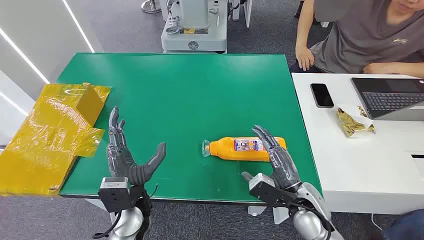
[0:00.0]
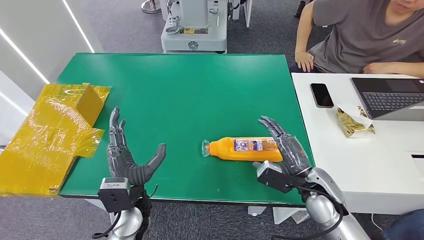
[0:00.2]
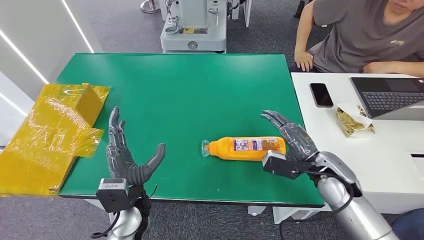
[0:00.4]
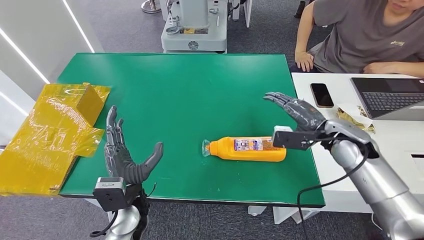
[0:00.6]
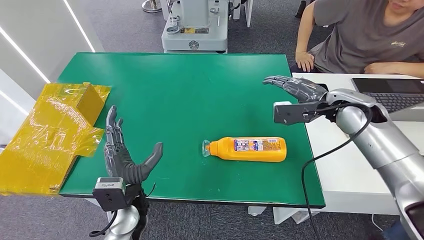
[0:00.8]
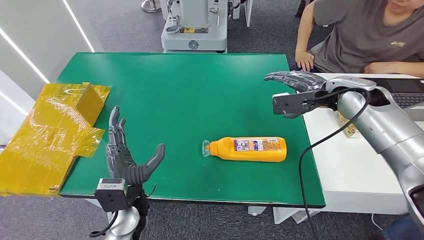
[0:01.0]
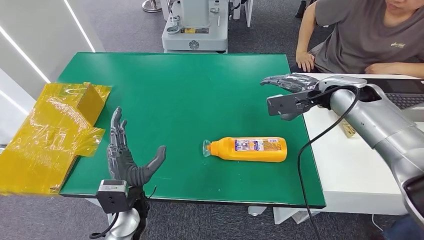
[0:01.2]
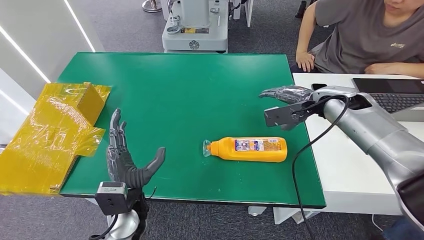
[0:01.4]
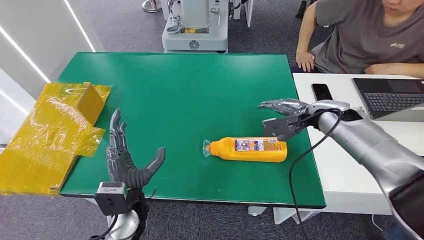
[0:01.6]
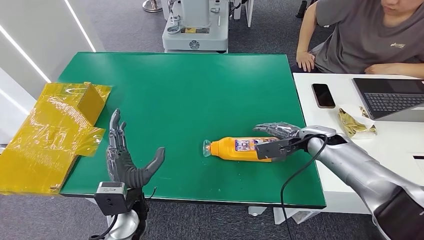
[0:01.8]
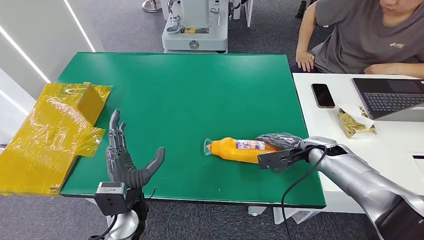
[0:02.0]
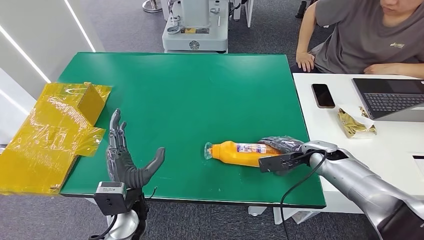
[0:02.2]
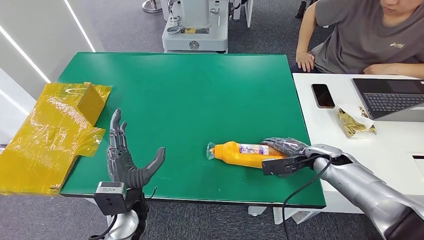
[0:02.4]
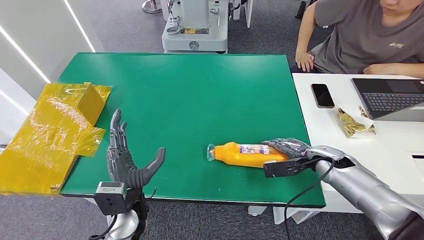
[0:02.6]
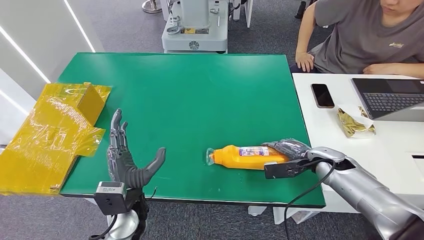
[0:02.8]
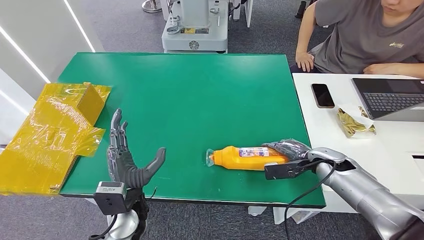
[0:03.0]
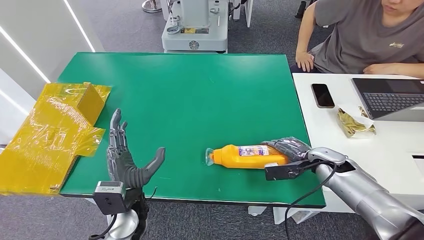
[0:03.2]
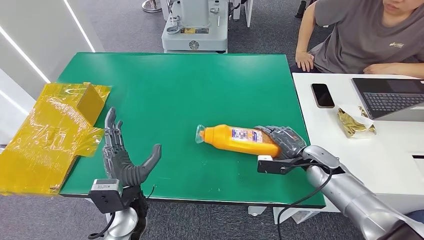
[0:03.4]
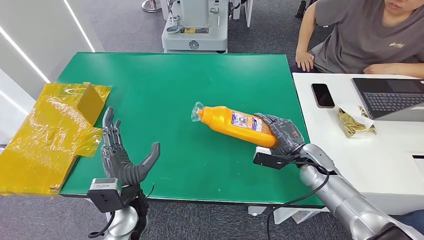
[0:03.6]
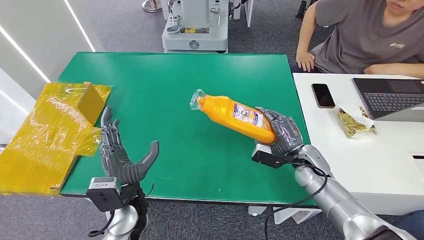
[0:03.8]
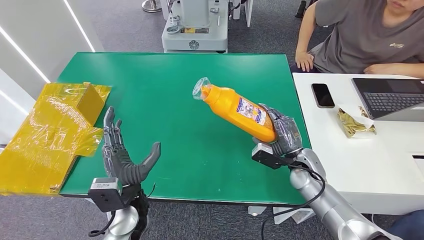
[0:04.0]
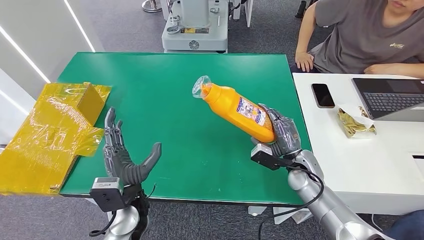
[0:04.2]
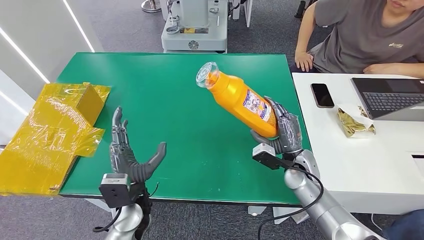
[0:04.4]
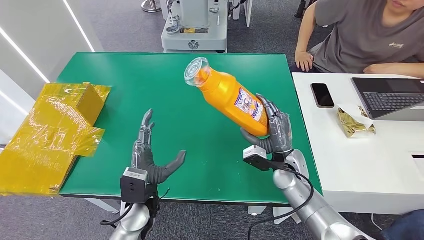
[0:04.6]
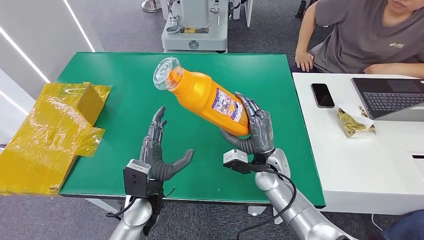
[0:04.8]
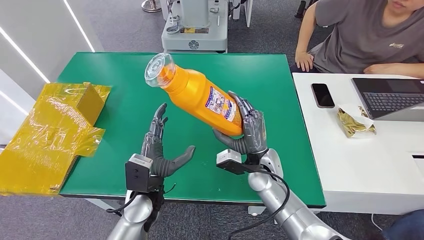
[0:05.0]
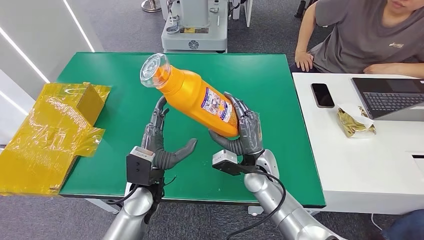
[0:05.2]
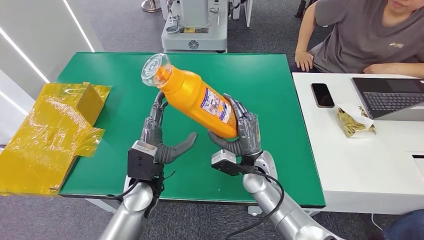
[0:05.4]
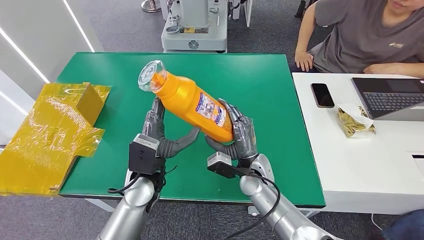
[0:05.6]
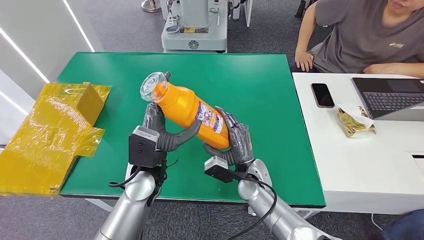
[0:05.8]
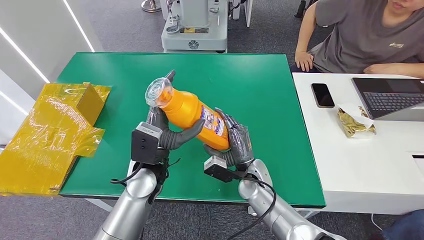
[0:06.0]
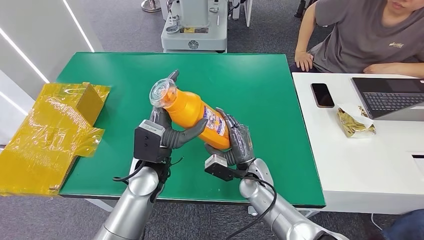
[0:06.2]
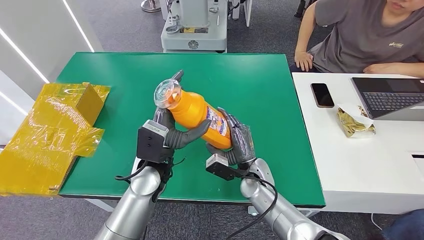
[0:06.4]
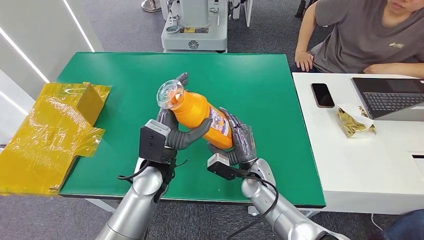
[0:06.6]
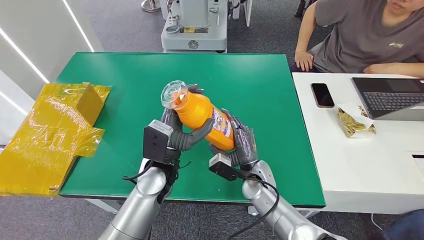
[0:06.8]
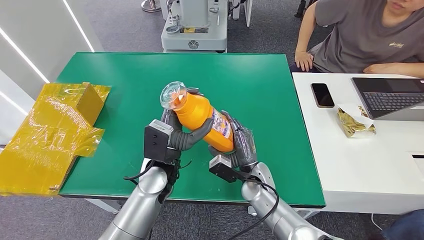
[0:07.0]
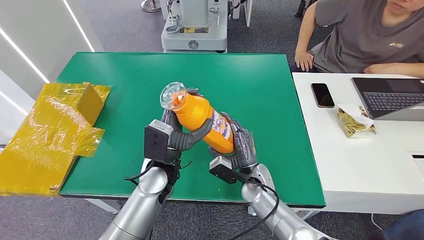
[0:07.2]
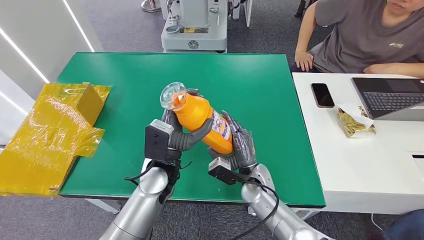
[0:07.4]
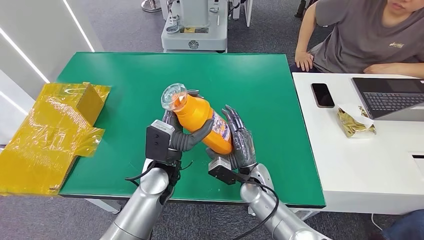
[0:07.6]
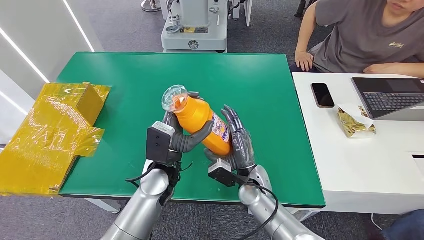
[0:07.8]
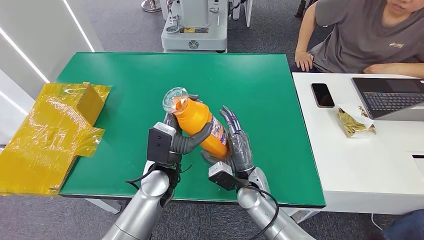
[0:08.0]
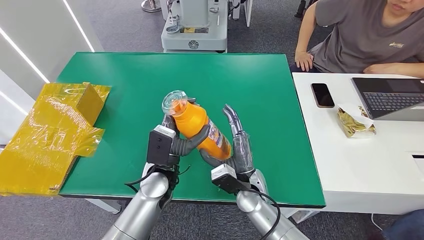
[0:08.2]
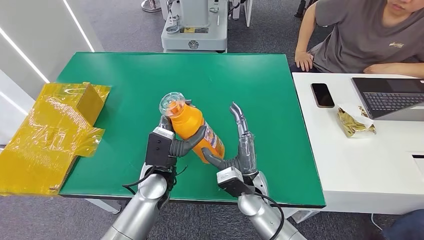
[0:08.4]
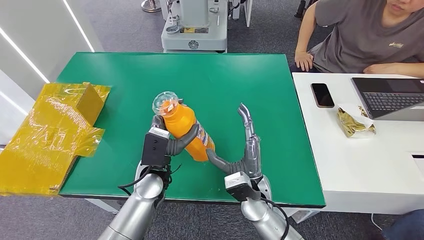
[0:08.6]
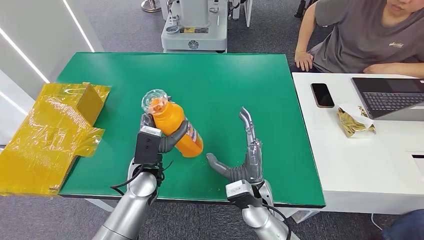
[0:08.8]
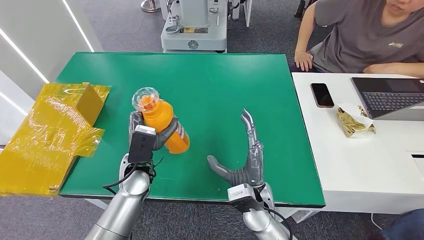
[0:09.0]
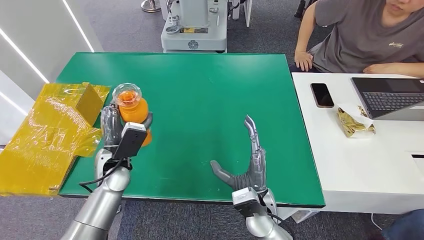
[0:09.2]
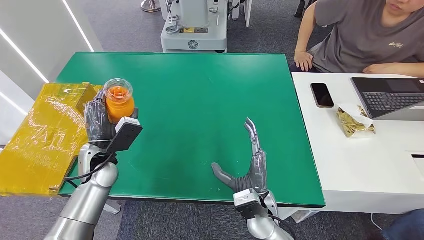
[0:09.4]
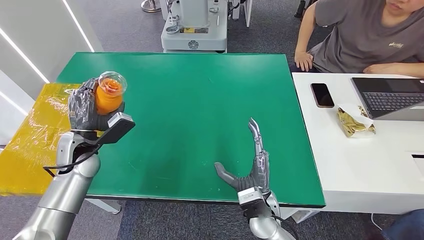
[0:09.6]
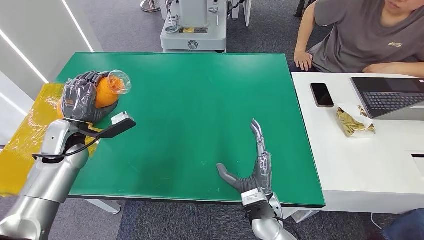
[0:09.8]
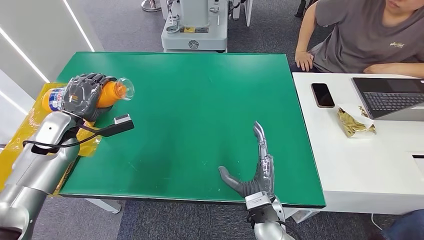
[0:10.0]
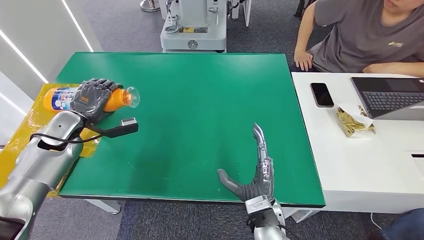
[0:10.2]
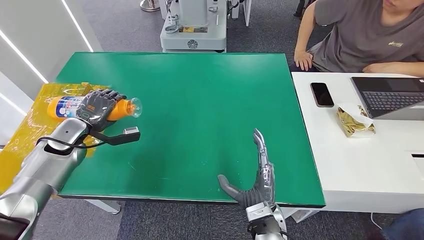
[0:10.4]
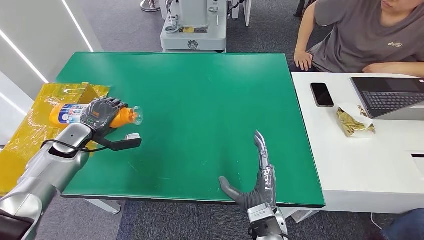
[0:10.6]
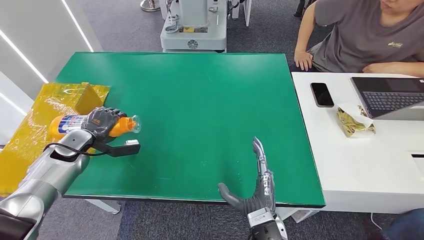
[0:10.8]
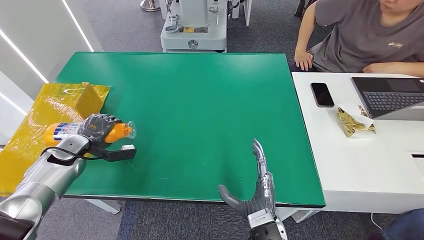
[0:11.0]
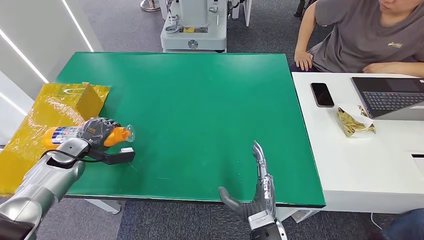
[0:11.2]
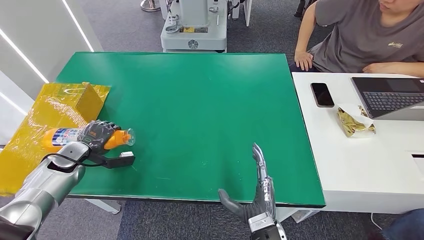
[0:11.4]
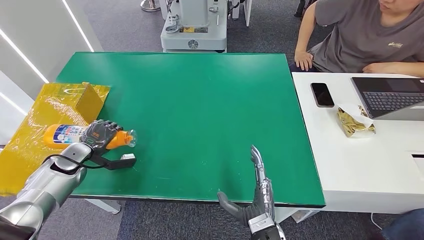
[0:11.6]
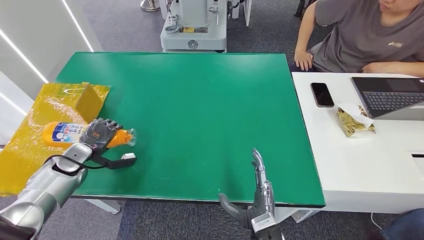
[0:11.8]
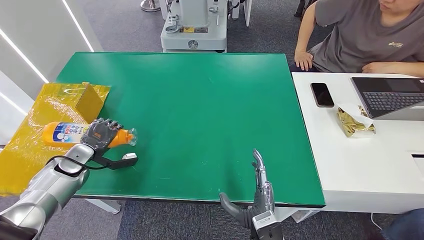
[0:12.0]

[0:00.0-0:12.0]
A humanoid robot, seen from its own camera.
Step, 0.0 to 4.0 s: Pick up the bottle from the table.
1.6 to 3.0 s: The right hand moves downward and backward, about 15 cm.
3.0 to 4.4 s: The right hand shifts some 10 cm to the left.
4.4 to 6.0 s: The left hand moves upward and forward, about 10 cm; the right hand heads to the left, covering about 15 cm.
6.0 to 7.6 s: There are only small adjustments of the hands.
7.6 to 9.0 s: The left hand goes approximately 5 cm to the left, while the right hand is displaced backward by approximately 5 cm.
9.0 to 10.4 s: The left hand heads to the left, covering about 25 cm, while the right hand ends up some 5 cm from where it was.
10.4 to 12.0 s: The left hand travels downward by some 5 cm. Meanwhile the right hand ends up about 5 cm from where it was.

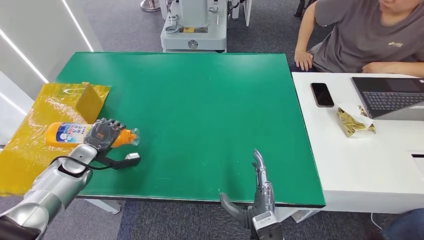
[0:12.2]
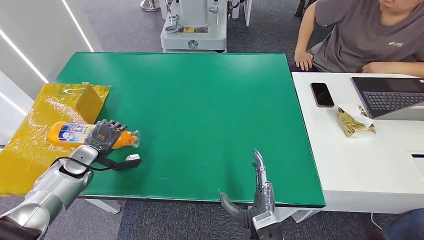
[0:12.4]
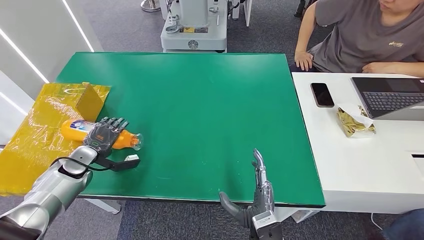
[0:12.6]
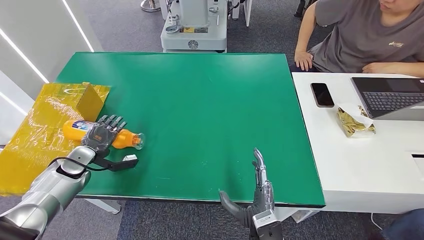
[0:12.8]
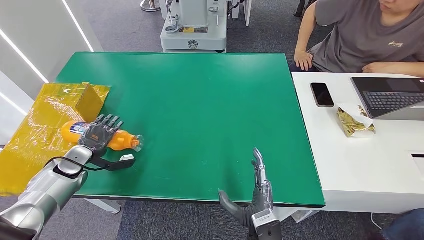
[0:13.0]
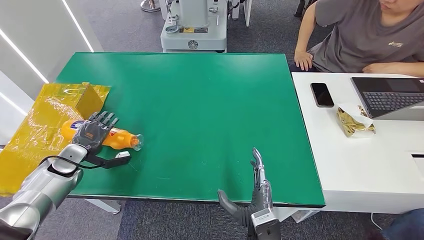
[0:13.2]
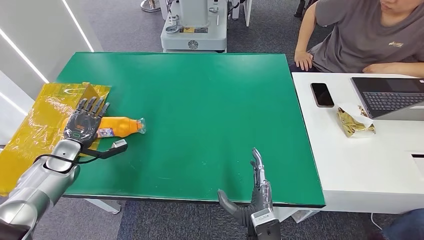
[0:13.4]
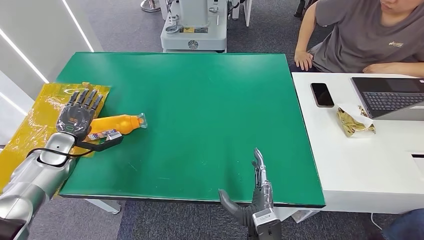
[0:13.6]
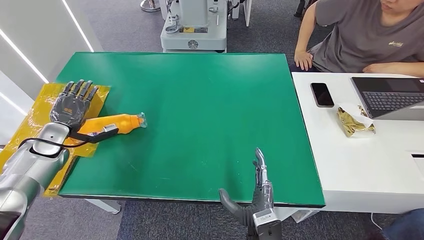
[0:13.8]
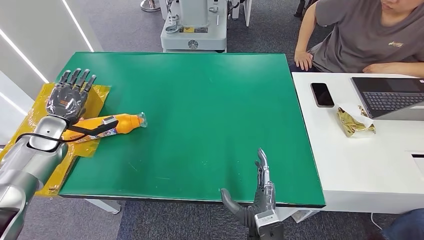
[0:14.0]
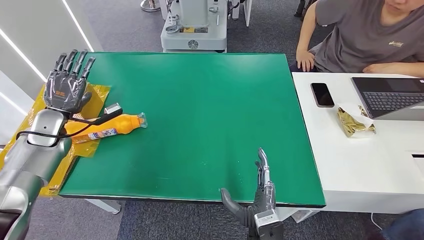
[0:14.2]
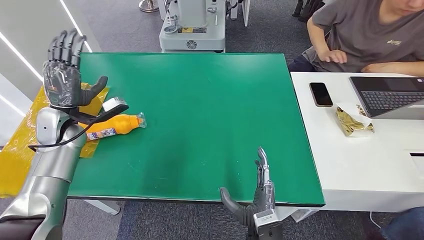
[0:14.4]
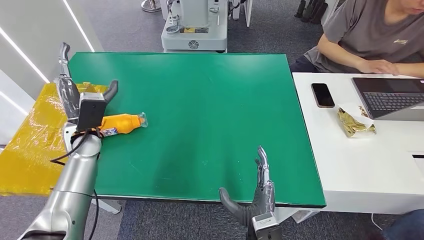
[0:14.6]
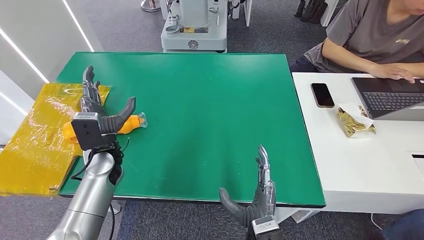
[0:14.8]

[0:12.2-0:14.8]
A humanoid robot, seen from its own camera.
Step, 12.2 to 14.8 s: Turn the bottle to the front side.
12.2 to 13.4 s: The hands make only small movements.
13.4 to 14.8 s: The left hand moves to the right, approximately 20 cm.

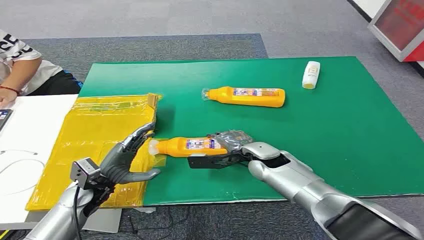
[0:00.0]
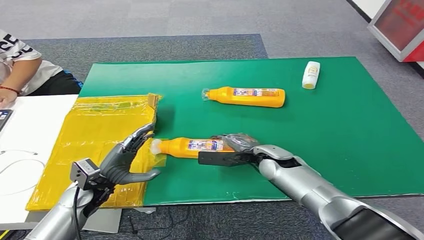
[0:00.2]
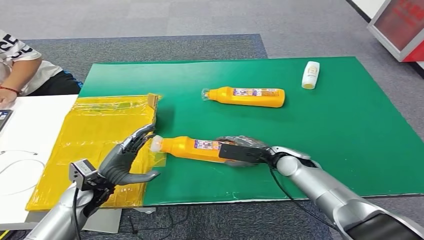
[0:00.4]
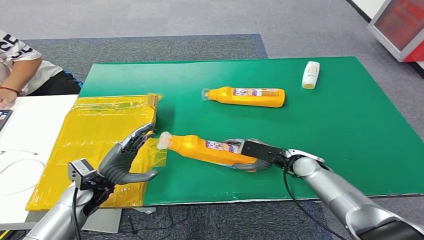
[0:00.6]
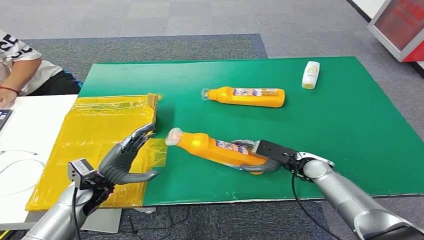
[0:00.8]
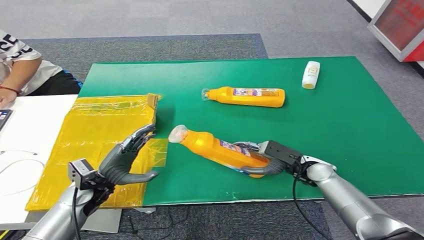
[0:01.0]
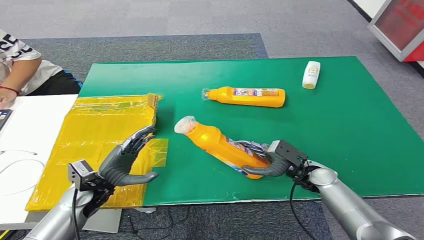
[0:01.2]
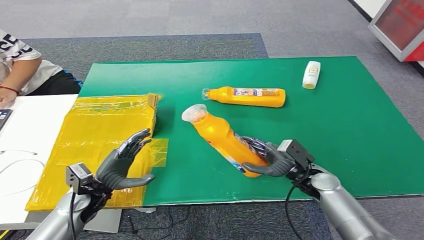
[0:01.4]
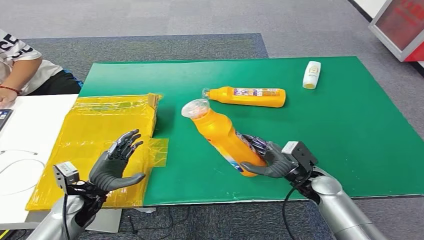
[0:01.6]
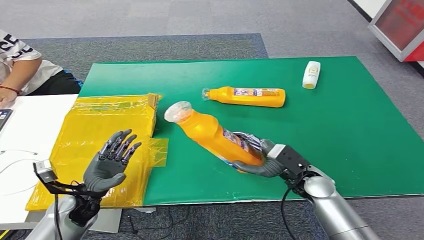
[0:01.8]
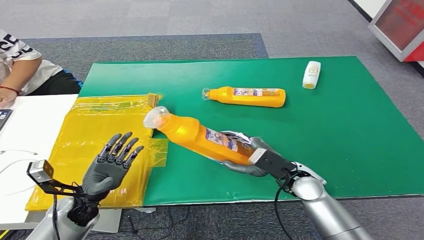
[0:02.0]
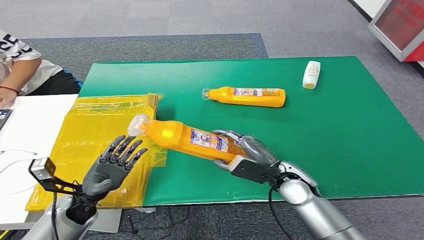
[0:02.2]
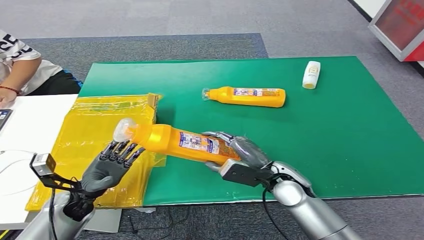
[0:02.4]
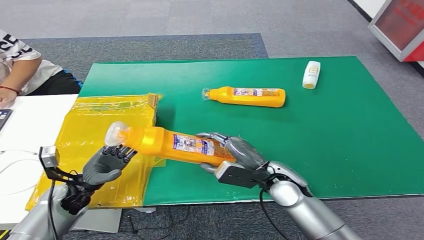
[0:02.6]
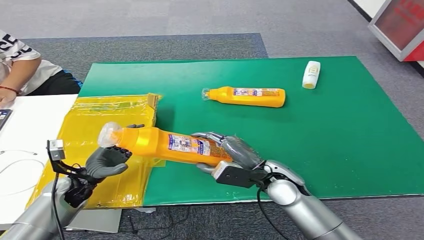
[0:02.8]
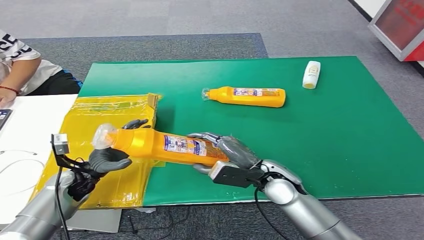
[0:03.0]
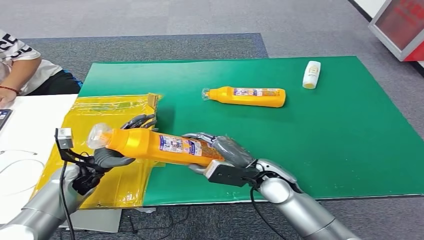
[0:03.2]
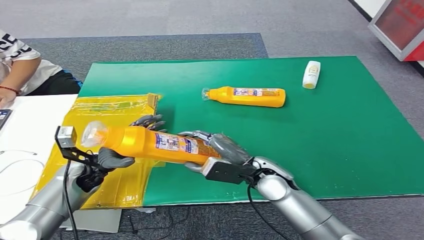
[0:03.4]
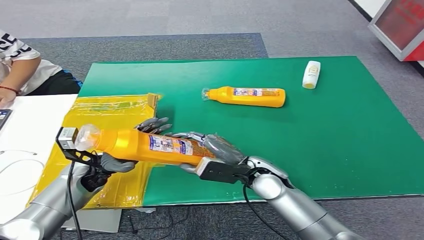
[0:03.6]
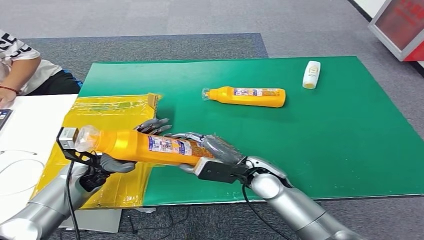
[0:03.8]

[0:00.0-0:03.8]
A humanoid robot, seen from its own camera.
Step, 0.0 to 2.6 s: Pick up the bottle from the table.
1.2 to 2.6 s: The right hand moves to the left and upward, approximately 10 cm; the left hand ends up roughly 5 cm from where it was.
2.6 to 3.8 s: The left hand moves forward, some 5 cm.
